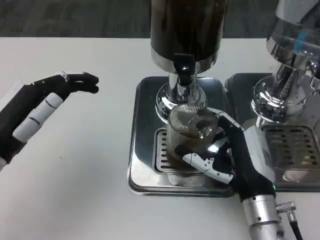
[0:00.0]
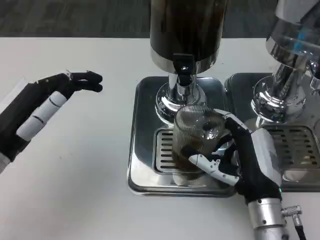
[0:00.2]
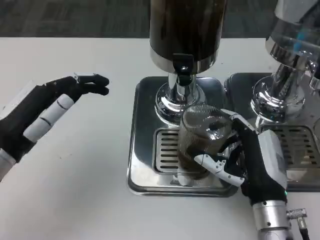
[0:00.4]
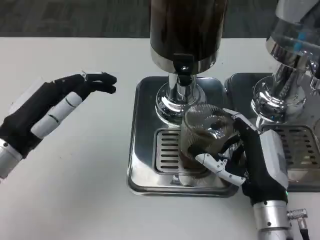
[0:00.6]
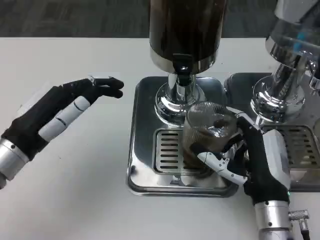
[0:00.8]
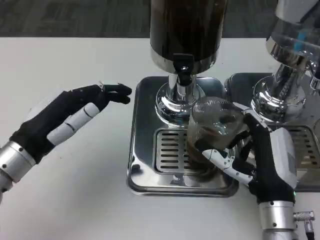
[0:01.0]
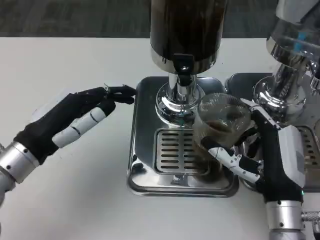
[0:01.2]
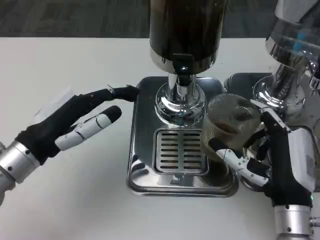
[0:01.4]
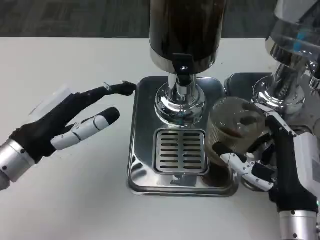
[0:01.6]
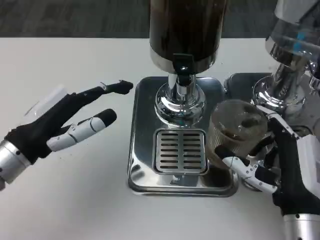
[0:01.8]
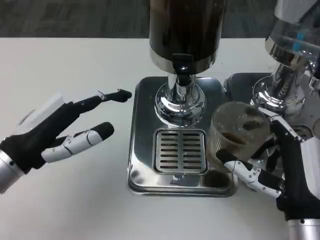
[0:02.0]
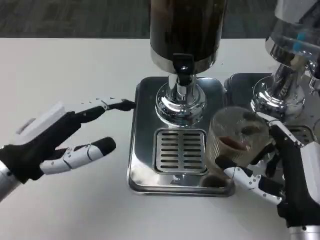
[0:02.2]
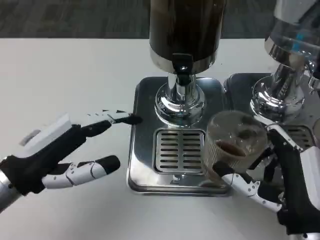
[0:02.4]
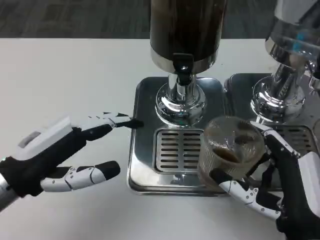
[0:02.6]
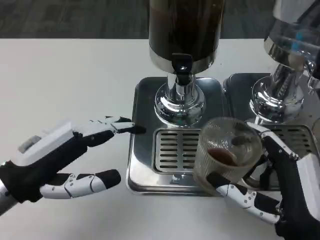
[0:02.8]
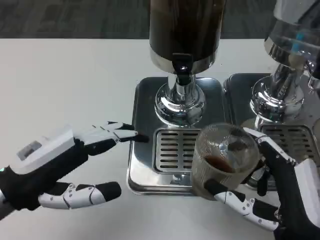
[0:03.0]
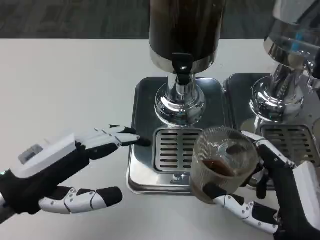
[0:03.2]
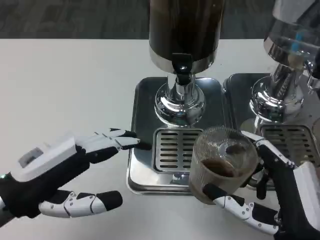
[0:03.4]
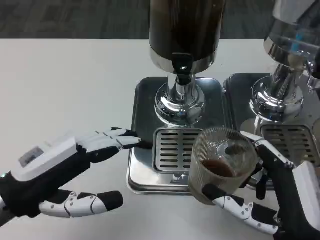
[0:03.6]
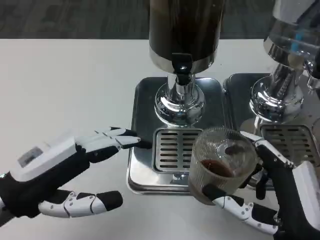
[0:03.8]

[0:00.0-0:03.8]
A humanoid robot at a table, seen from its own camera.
Task of the whole recording: Grasp the cup under the faucet to collect the drink, then remove the cup.
0:01.2 to 0:02.6: The left hand moves some 5 cm. Meanwhile the right hand shifts roughly 5 cm backward.

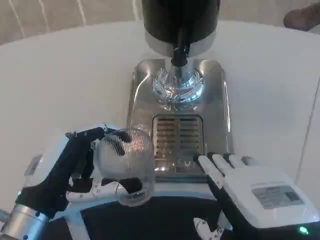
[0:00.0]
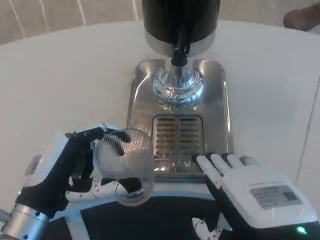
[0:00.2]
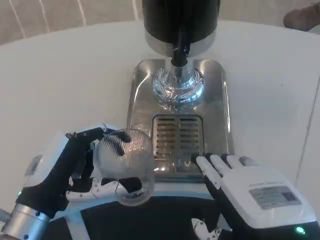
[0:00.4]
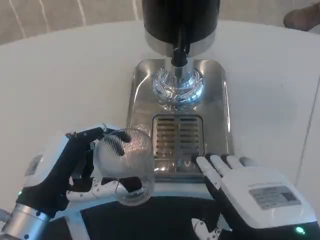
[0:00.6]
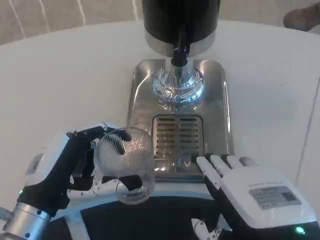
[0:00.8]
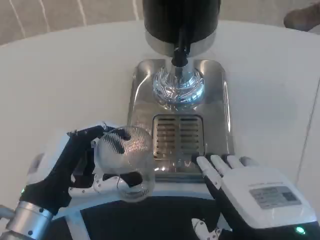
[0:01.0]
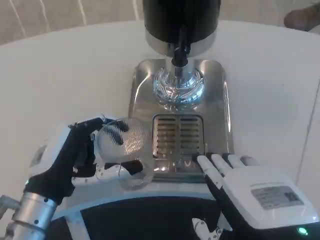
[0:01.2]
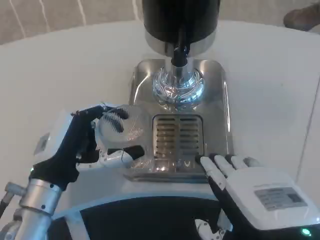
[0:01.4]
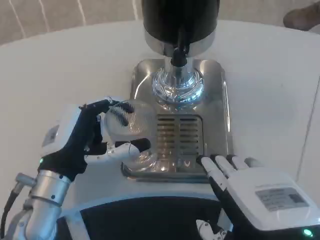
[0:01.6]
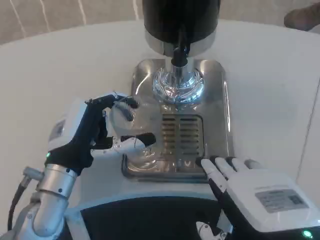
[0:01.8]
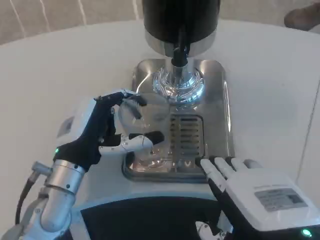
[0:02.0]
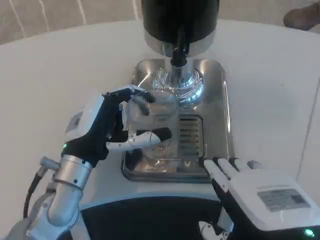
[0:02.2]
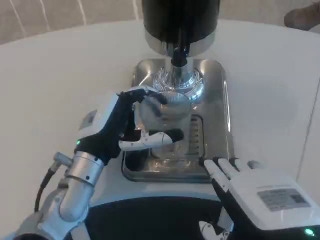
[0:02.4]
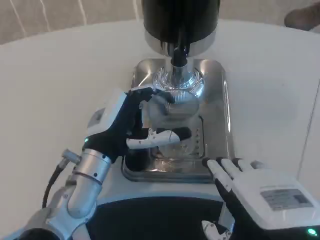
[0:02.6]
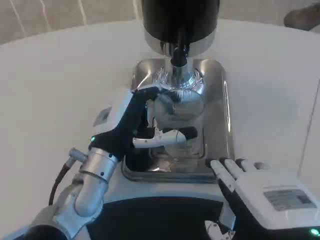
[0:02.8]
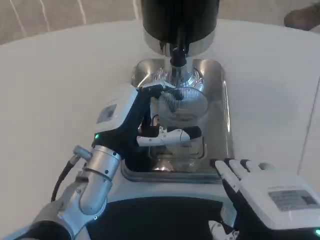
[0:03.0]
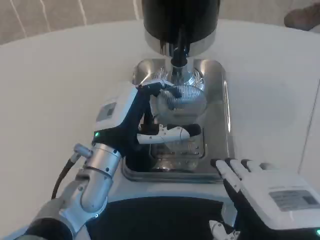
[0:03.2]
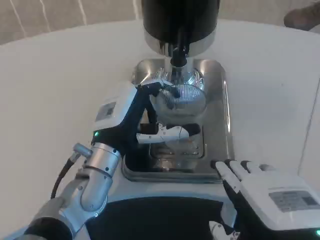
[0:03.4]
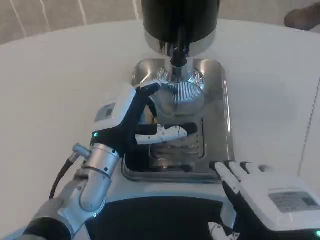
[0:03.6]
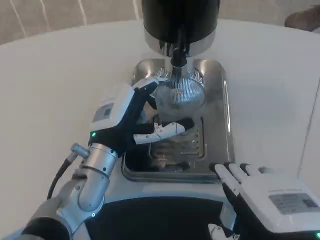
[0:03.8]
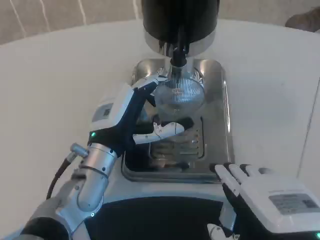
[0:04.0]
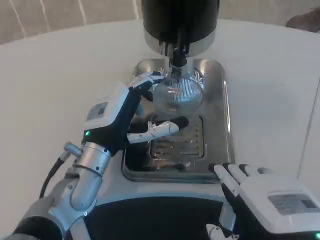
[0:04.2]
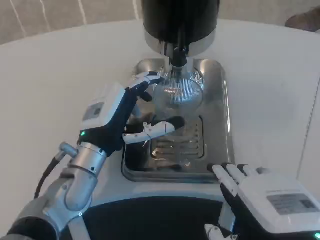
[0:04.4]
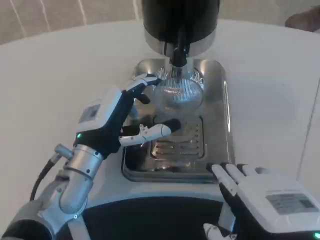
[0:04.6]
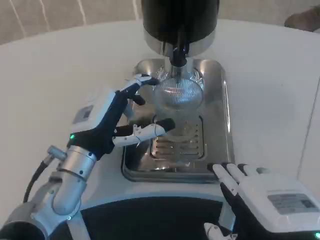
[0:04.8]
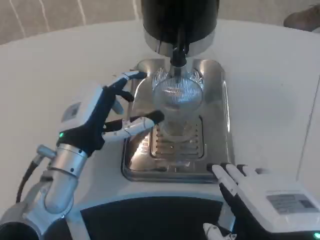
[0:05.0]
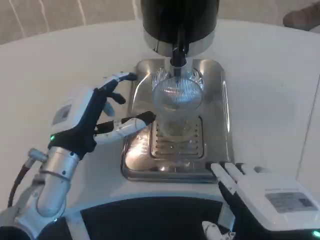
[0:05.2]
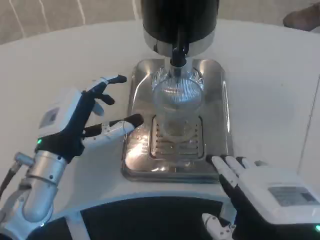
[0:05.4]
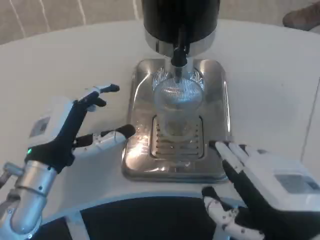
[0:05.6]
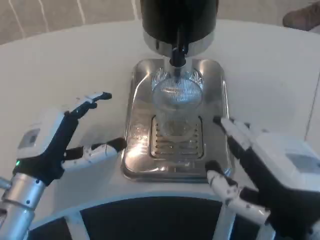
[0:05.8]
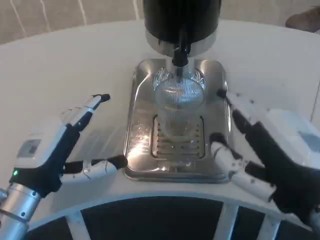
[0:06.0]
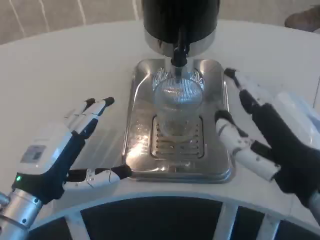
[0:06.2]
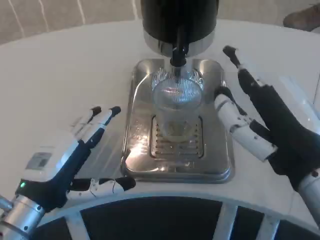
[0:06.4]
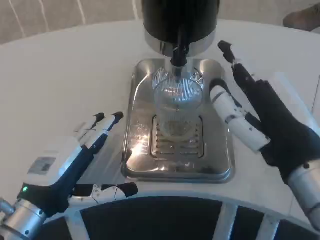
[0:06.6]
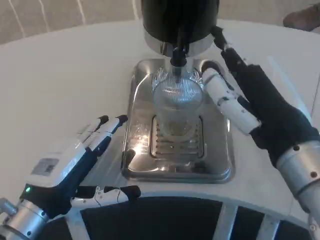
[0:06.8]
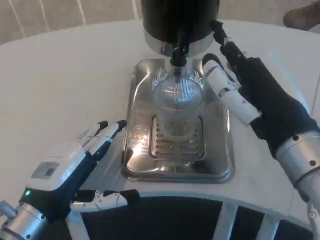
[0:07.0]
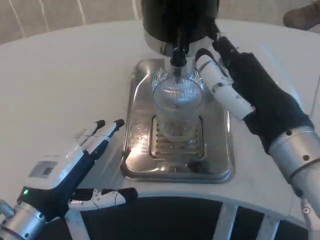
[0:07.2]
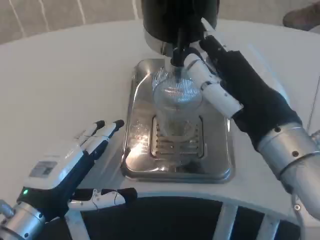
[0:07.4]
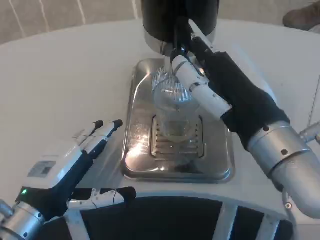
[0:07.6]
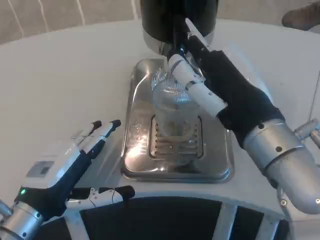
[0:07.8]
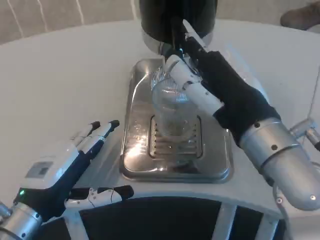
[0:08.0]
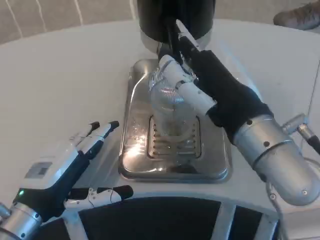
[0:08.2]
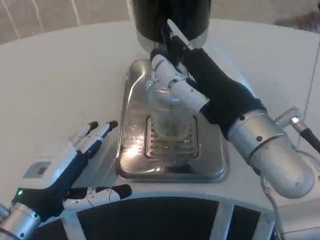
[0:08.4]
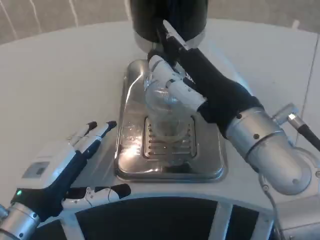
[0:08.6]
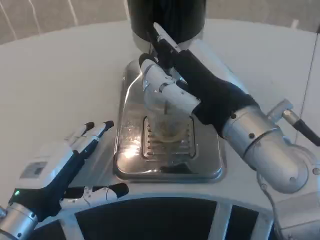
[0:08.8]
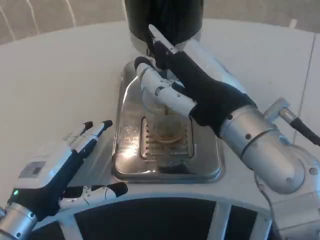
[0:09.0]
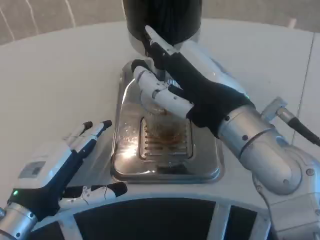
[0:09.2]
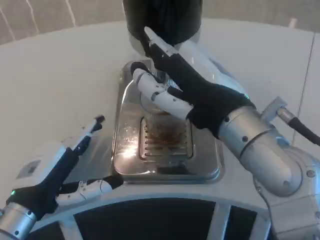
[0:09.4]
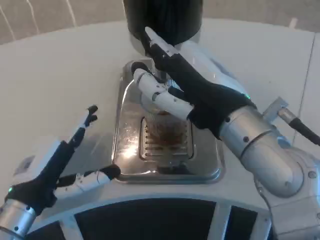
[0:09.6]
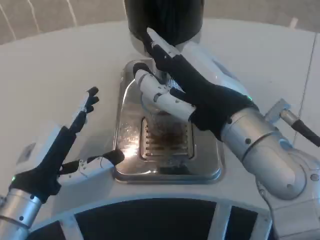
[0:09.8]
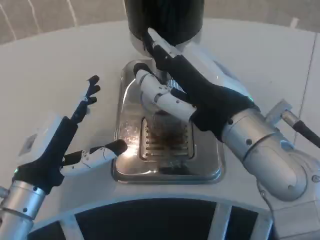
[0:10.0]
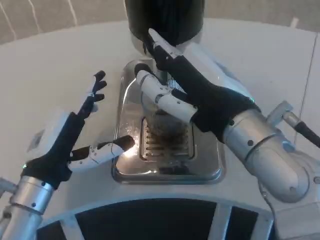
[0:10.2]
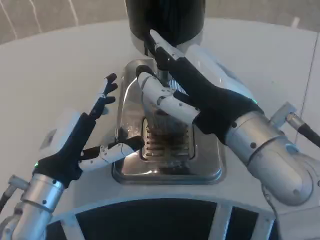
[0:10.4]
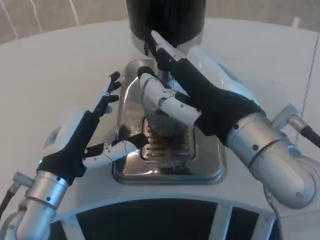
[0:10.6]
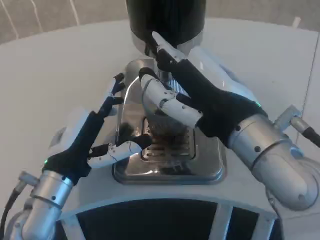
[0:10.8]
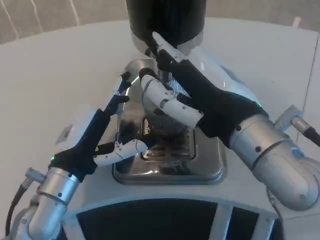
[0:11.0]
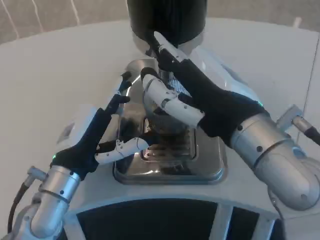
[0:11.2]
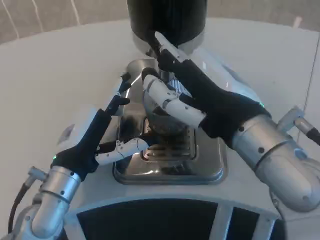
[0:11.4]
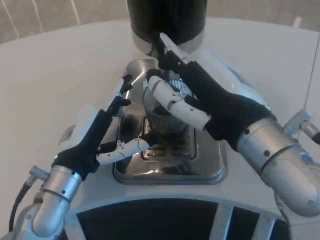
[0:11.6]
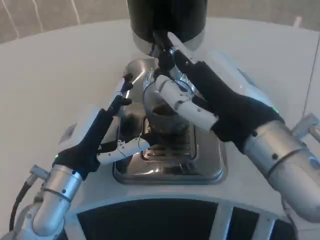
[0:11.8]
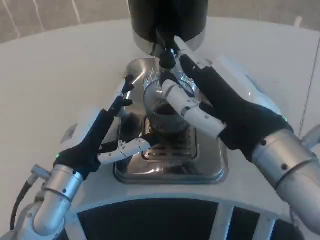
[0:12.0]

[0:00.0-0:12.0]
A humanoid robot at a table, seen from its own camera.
Task of the whole recording: Grasp the cup under the faucet to collect the drink, then remove the cup.
0:00.0 to 0:01.6: The left hand is displaced forward by approximately 5 cm.
0:01.6 to 0:03.0: The left hand goes some 5 cm to the right.
0:03.0 to 0:04.4: The hands make only small movements.
0:04.4 to 0:06.0: The left hand moves to the left and backward, roughly 10 cm.
0:06.0 to 0:07.6: The right hand is displaced forward by about 5 cm.
0:09.0 to 0:10.4: The left hand moves approximately 5 cm.

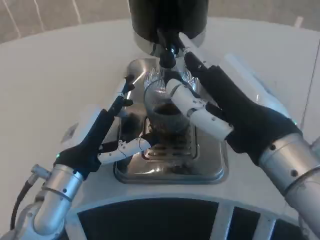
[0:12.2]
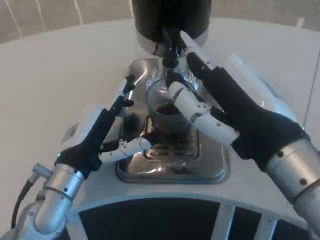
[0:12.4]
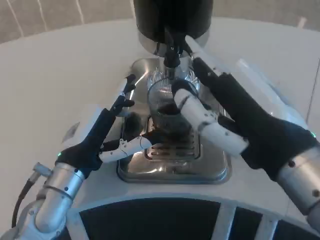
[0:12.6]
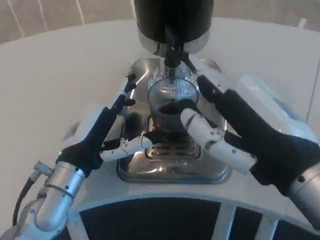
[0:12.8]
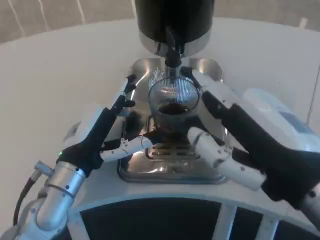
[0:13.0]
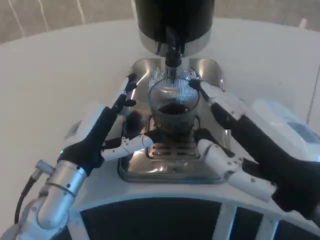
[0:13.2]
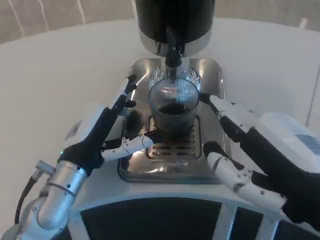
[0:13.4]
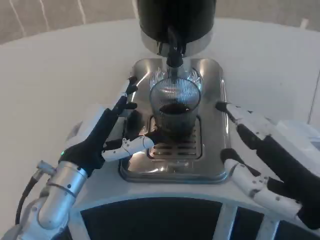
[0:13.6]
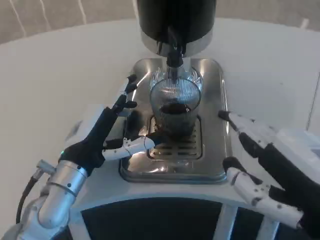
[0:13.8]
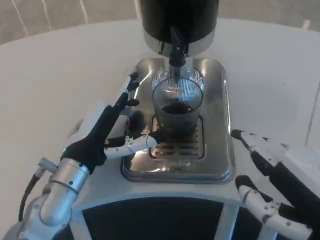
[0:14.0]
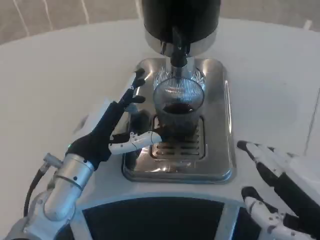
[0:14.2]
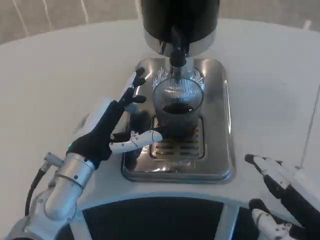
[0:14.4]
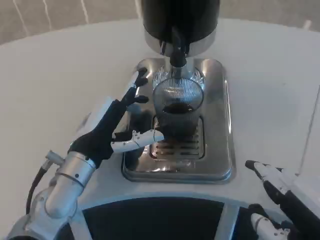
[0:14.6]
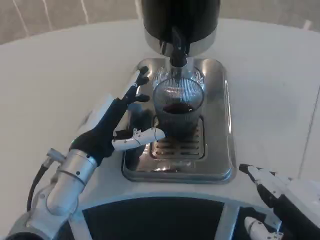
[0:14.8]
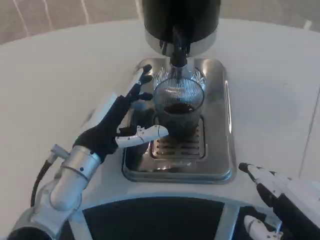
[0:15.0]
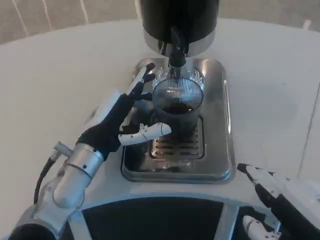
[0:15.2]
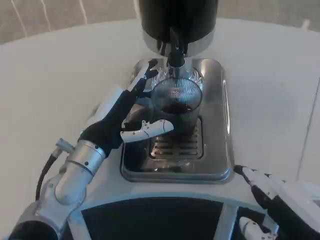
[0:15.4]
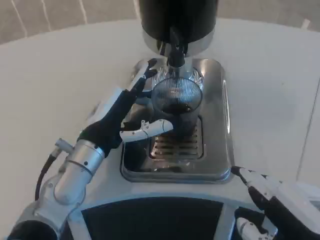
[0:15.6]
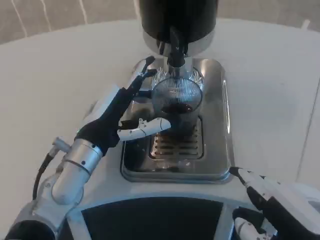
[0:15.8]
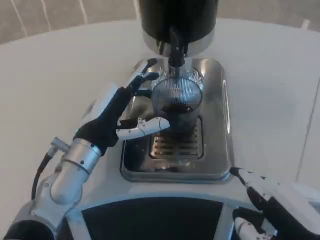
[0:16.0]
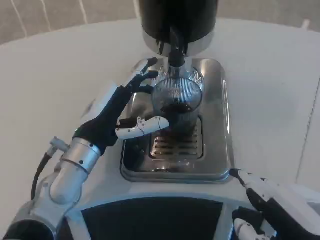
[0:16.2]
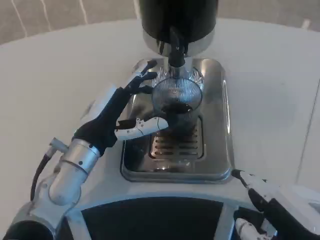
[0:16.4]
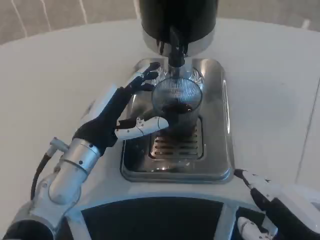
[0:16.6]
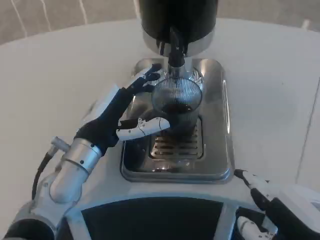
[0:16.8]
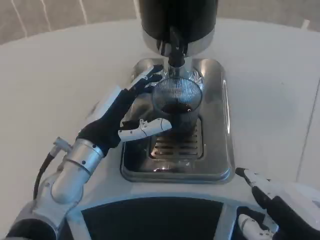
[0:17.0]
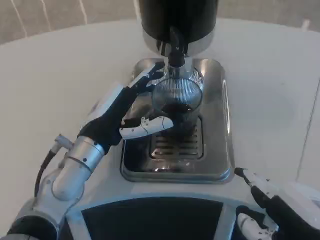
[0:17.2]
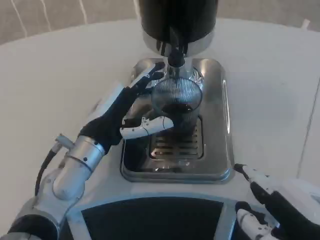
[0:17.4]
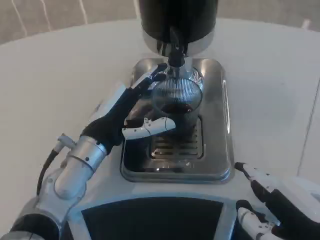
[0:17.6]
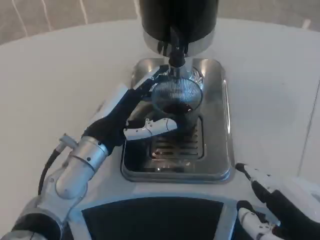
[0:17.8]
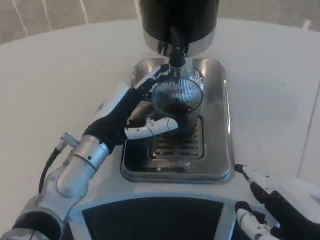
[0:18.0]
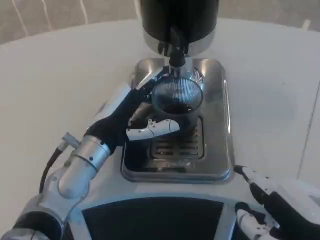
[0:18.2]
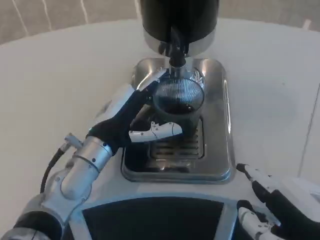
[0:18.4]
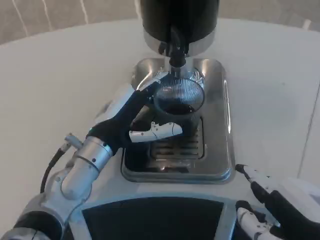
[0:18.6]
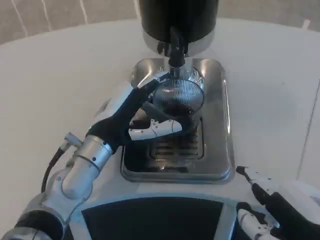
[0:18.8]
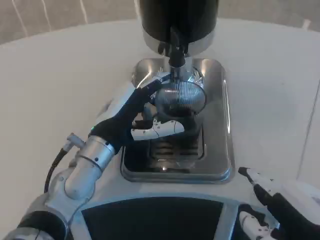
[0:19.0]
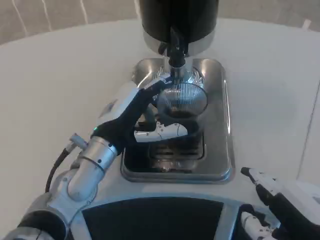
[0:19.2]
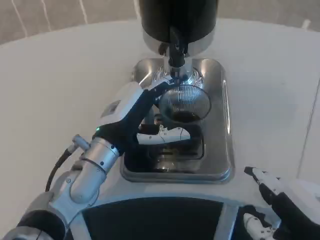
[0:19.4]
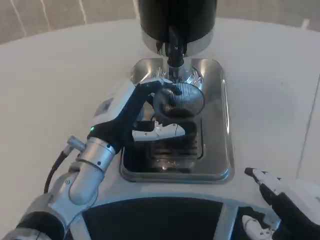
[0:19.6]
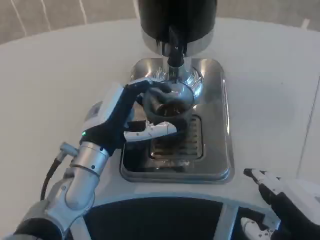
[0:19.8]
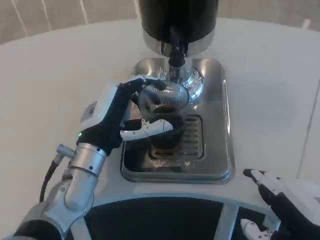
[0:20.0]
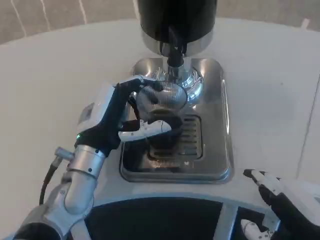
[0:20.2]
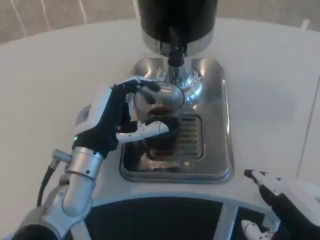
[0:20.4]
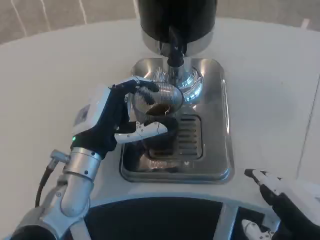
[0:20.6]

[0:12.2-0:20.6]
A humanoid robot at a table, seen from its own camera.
Task of the whole recording: Grasp the cup under the faucet to collect the drink, then remove the cup.
0:12.2 to 0:13.6: The right hand is displaced to the right and backward by approximately 10 cm.
0:15.0 to 0:16.4: Both hands stay about where they are.
0:16.4 to 0:17.8: Both hands stay put.
0:17.8 to 0:20.6: The hands move only a little.
